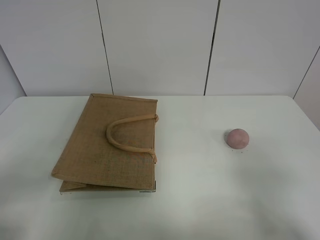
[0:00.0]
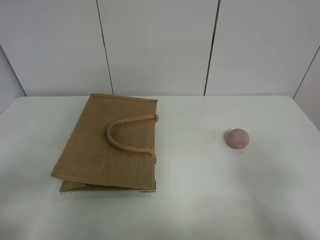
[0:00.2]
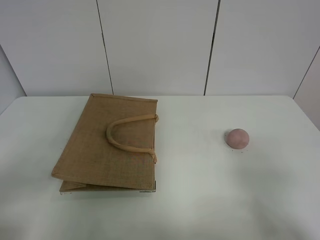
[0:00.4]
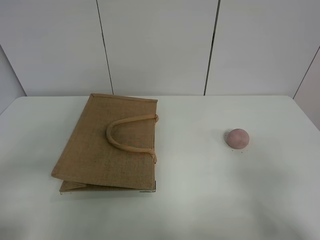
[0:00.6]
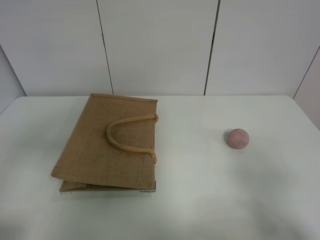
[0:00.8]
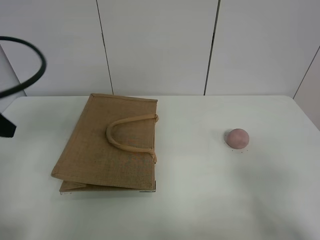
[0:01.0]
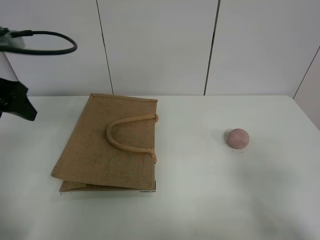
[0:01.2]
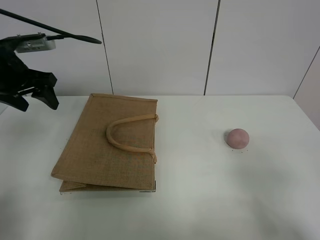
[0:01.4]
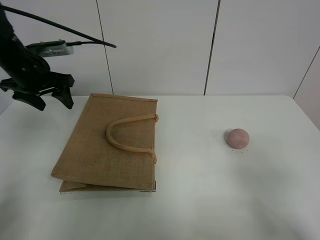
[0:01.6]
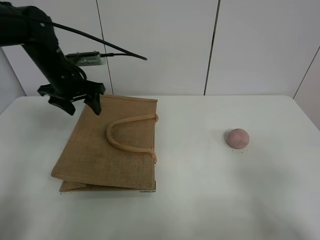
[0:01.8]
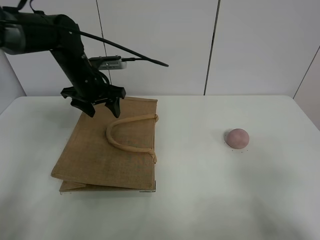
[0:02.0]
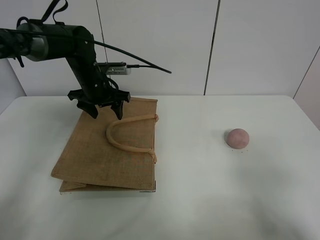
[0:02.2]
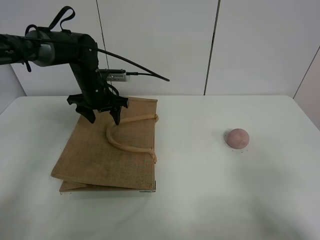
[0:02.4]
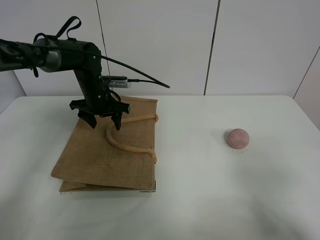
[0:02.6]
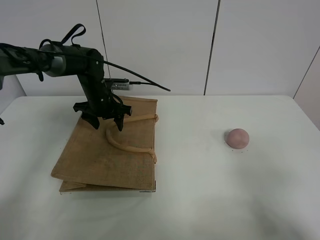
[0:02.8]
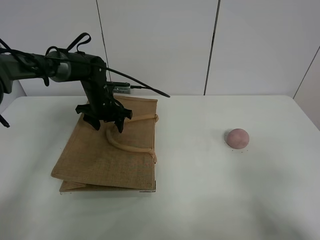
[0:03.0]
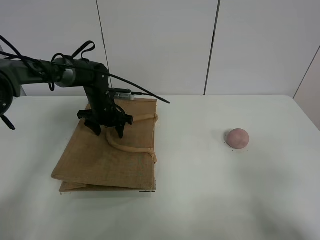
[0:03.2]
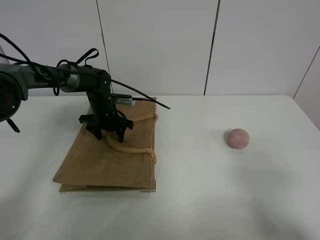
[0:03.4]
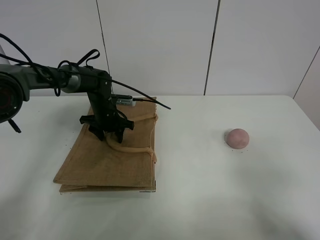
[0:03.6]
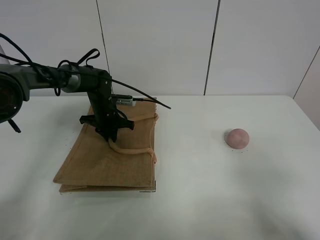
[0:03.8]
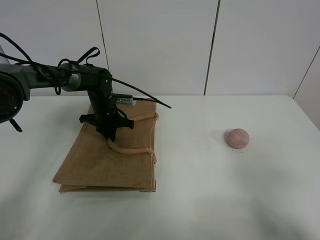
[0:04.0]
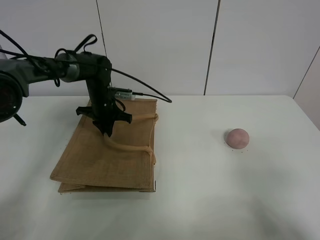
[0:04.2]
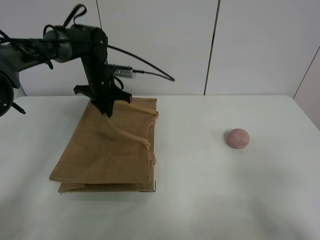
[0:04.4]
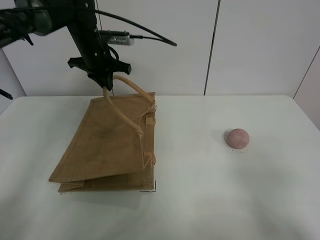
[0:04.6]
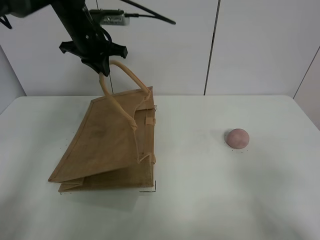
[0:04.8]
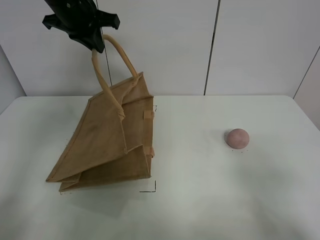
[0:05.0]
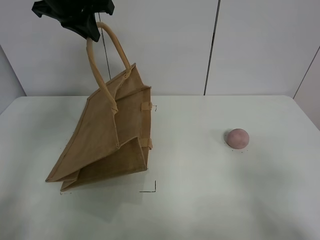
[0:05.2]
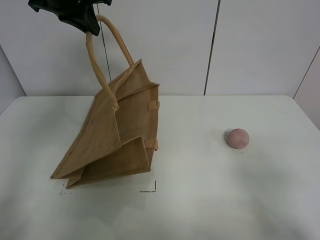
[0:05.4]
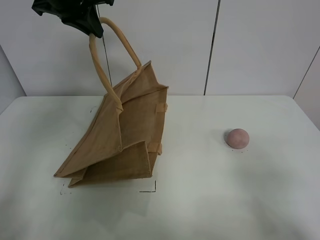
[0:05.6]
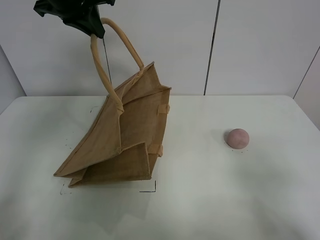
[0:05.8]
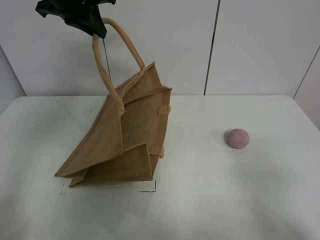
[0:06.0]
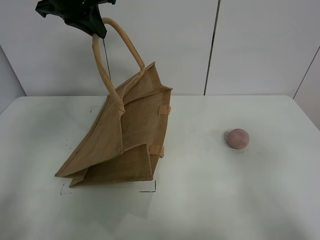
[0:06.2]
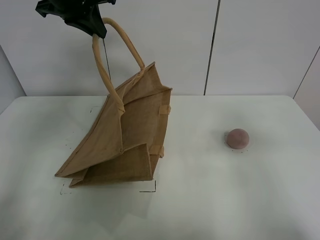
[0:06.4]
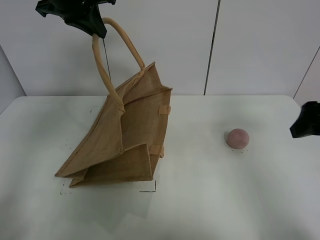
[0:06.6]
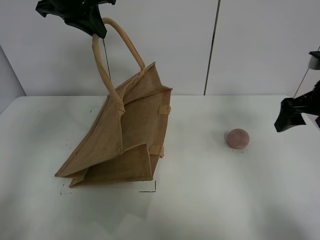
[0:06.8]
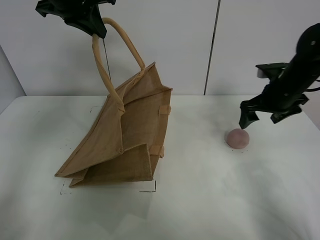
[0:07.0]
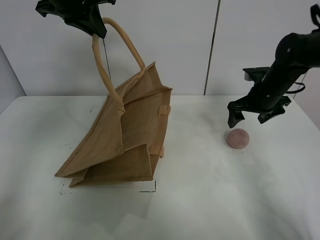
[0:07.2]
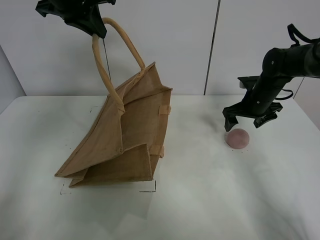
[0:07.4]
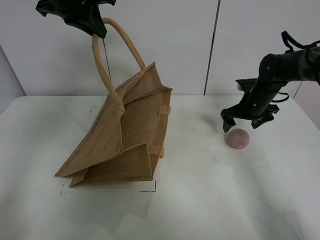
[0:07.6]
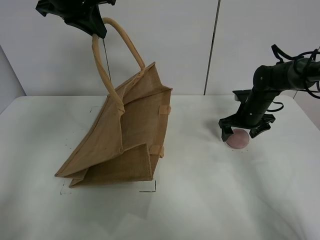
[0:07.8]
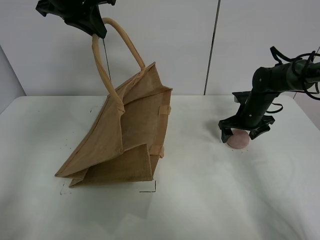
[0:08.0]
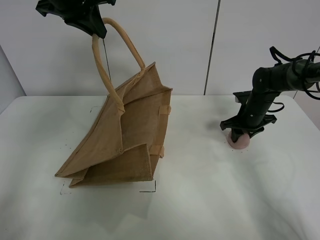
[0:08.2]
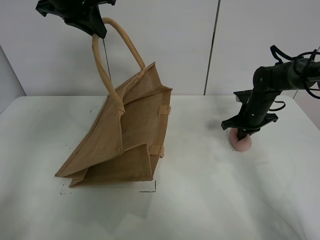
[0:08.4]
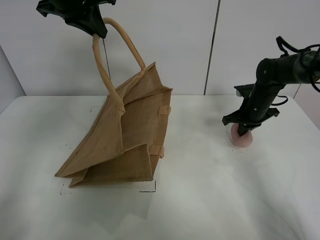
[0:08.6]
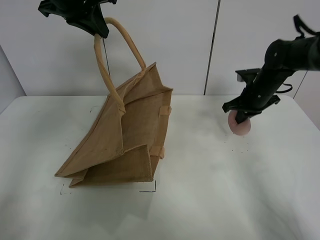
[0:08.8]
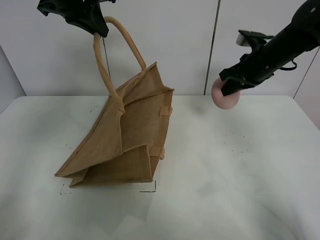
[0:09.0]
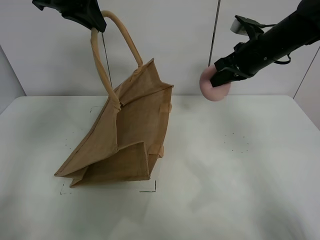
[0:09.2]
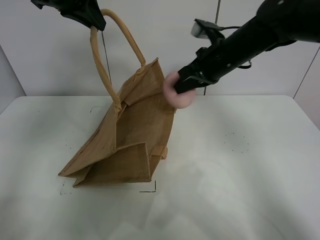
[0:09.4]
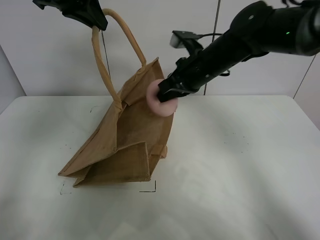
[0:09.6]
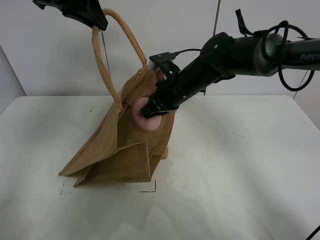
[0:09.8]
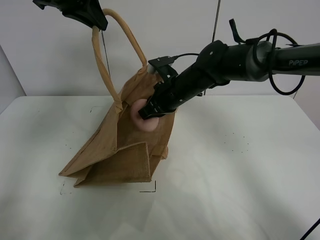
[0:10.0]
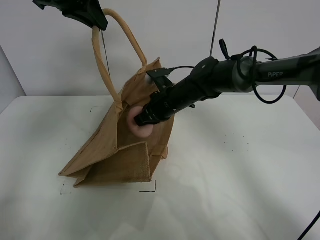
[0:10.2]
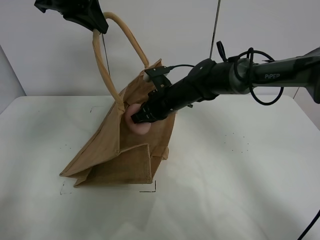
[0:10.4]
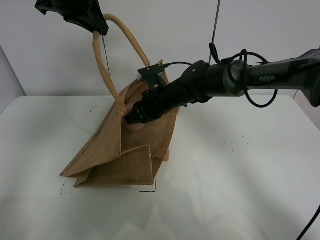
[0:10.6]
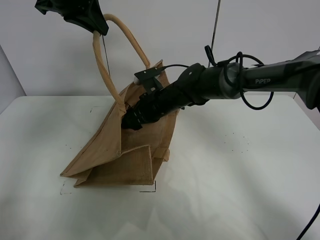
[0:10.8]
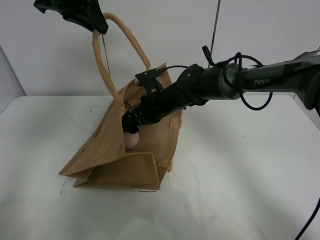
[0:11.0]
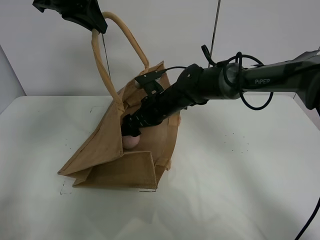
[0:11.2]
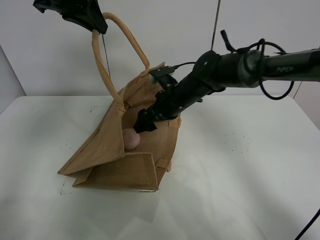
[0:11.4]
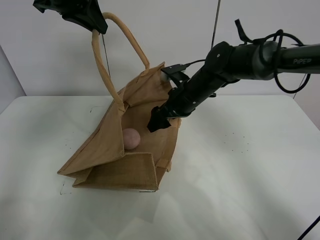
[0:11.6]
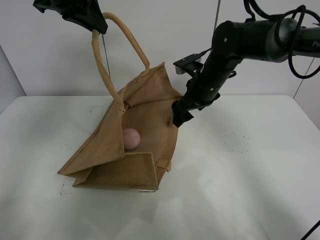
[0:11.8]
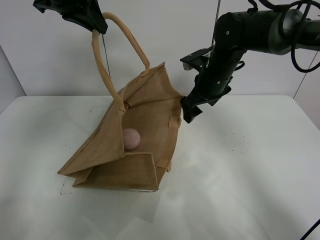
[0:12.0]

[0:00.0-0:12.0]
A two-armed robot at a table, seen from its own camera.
Task of the whole recording: open the brown linen bag and put the peach in the bag.
Step, 0:00.0 to 0:05.2: Lift the handbag with left gripper.
Step, 0:05.4 to 0:08.4: Grasp the peach with right gripper.
Step, 0:08.6 to 0:11.8: Place the peach in the handbag with right gripper.
0:00.0 to 0:01.6: The left gripper moves forward, approximately 40 cm.
0:01.6 to 0:03.0: The left gripper heads downward, to the right and forward, covering approximately 20 cm.
0:03.0 to 0:04.4: The left gripper shifts approximately 5 cm upward, and closes its fingers.
0:04.4 to 0:06.0: The left gripper heads upward, covering about 20 cm.
0:06.0 to 0:07.6: The right gripper shifts some 40 cm forward.
0:07.6 to 0:09.0: The right gripper is displaced upward by about 15 cm, and closes its fingers.
0:09.0 to 0:10.4: The right gripper heads to the left and downward, covering about 20 cm.
0:10.4 to 0:12.0: The right gripper heads to the right and upward, covering some 10 cm, and opens up.

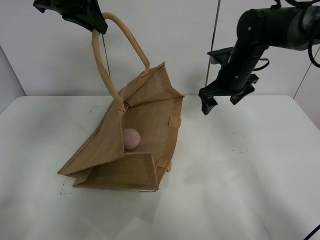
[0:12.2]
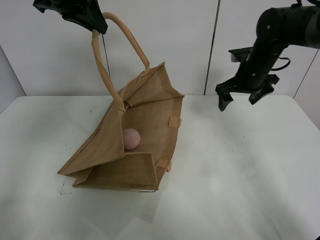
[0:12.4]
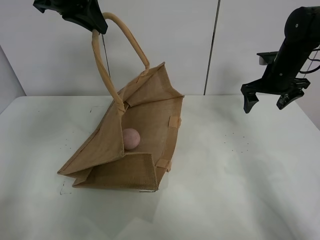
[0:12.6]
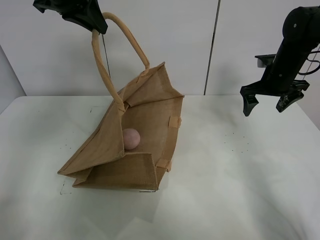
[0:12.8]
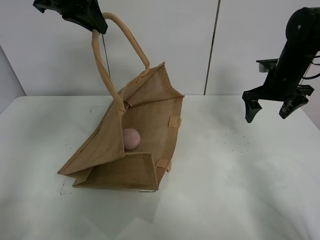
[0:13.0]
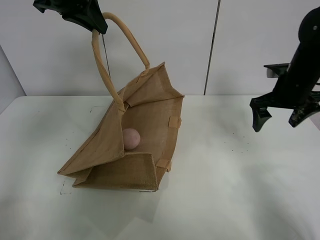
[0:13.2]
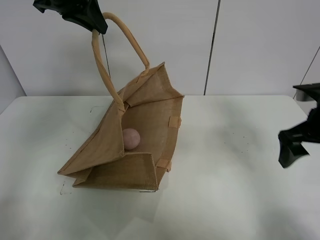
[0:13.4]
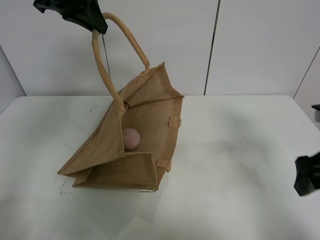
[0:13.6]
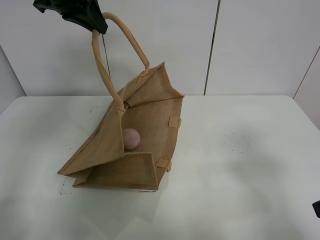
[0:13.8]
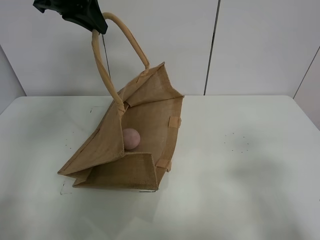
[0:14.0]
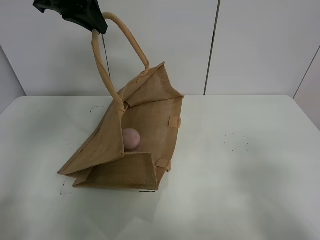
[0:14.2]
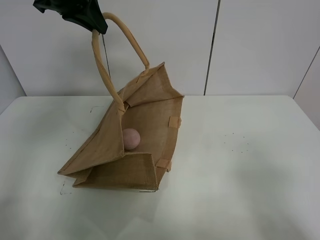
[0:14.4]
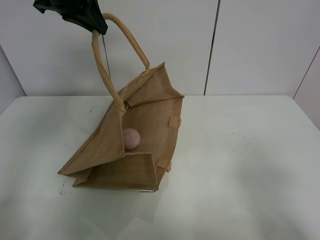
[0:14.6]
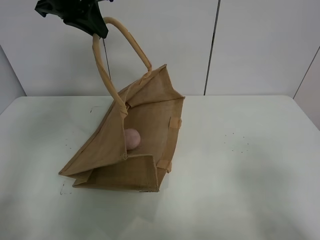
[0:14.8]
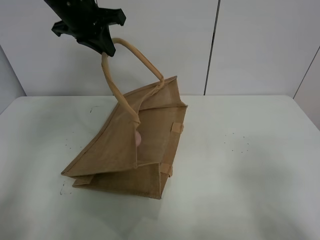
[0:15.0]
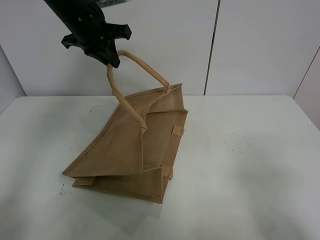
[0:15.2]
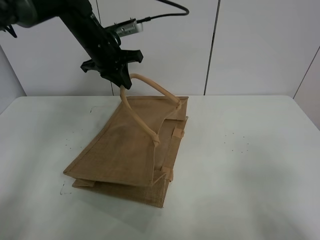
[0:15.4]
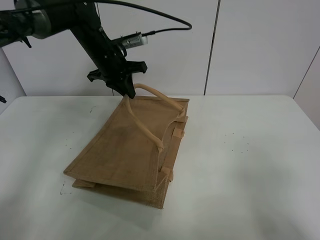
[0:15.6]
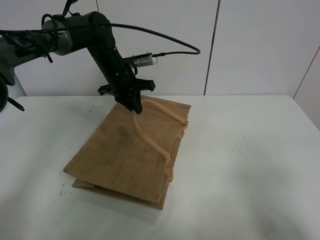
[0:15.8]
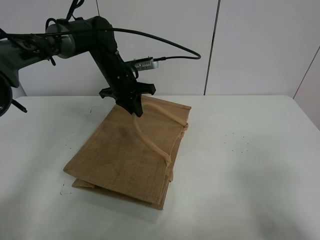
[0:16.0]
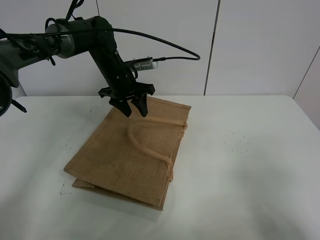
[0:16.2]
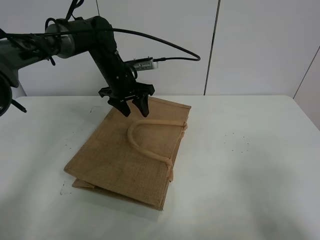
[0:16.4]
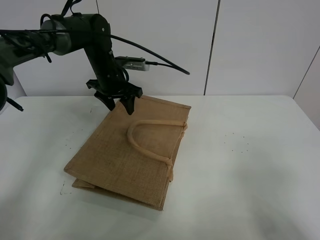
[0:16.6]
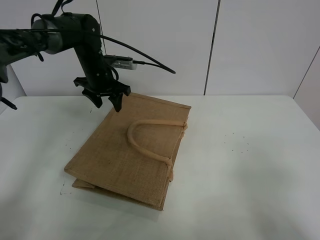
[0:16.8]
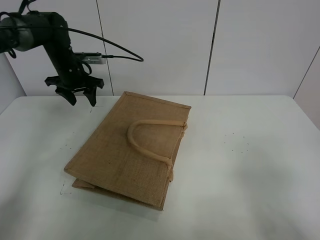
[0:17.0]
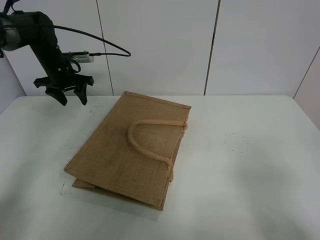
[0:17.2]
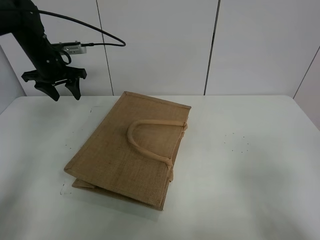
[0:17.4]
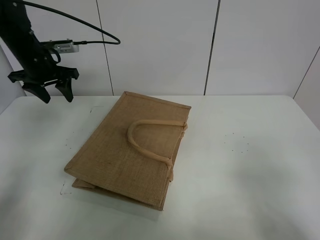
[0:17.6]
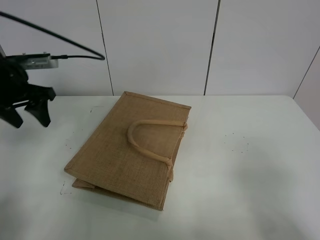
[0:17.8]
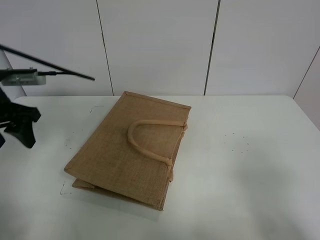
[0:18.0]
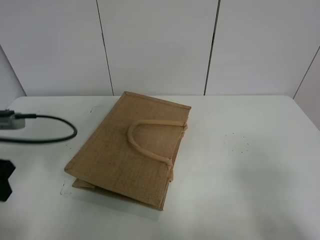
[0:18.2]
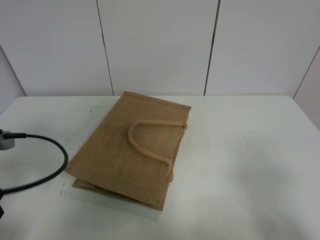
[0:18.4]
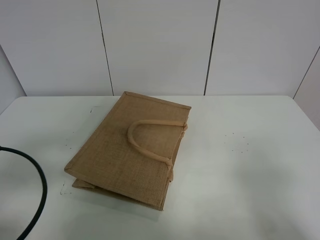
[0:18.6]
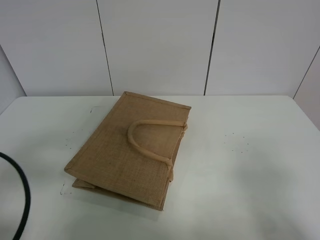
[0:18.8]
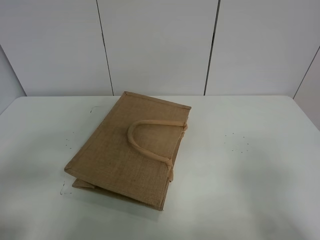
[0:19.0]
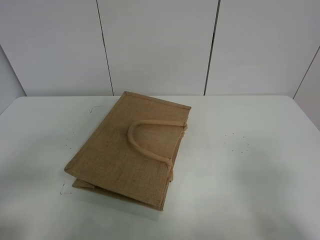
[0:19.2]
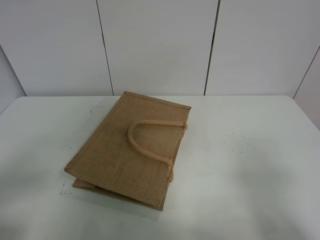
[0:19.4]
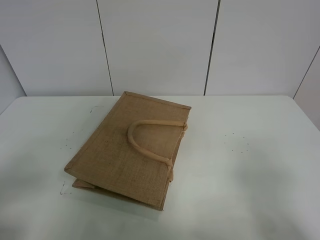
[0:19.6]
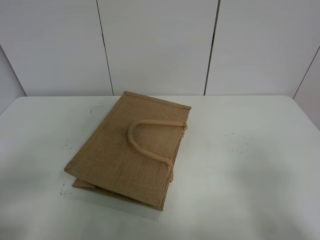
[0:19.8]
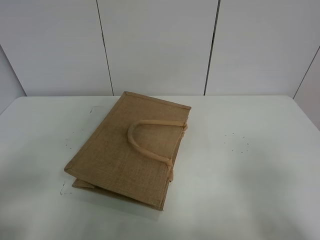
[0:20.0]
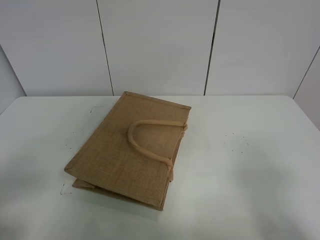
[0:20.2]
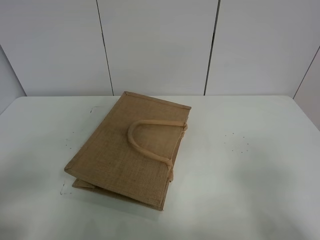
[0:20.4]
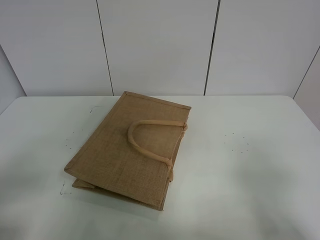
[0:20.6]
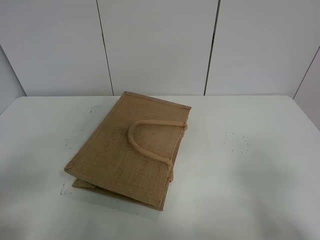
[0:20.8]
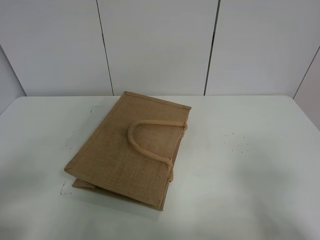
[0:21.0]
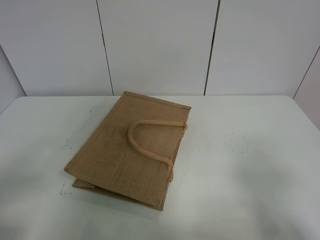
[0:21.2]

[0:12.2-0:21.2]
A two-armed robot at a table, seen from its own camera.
Task of the whole recording: open the brown linen bag and put the peach in the bag.
Step, 0:12.2 to 0:16.8: Put down the handbag with left grippe.
0:12.2 to 0:13.8: The right gripper shifts some 30 cm backward.
0:13.8 to 0:15.2: The left gripper goes roughly 10 cm downward, while the right gripper goes roughly 10 cm backward.
0:15.2 to 0:16.6: The left gripper shifts approximately 10 cm downward, and opens.
0:16.6 to 0:18.2: The left gripper goes approximately 35 cm backward and to the left.
0:18.2 to 0:19.8: The left gripper shifts about 15 cm backward.
0:19.8 to 0:21.2: Neither gripper changes place.
